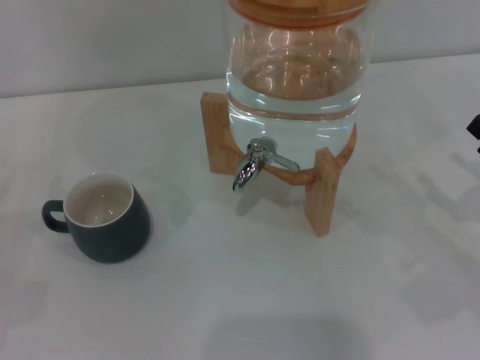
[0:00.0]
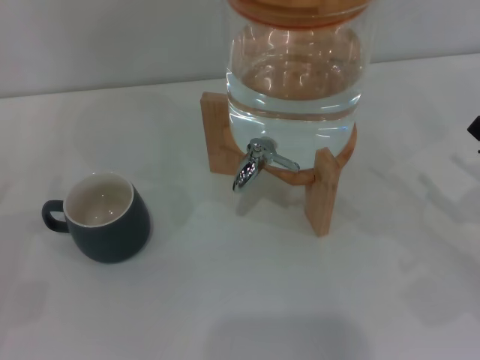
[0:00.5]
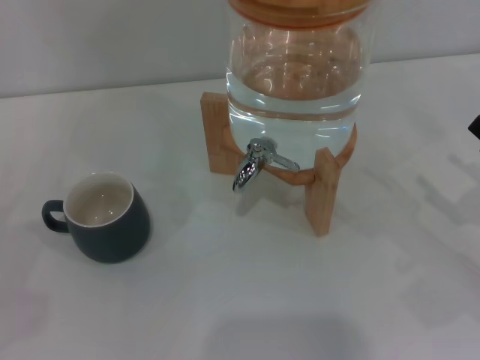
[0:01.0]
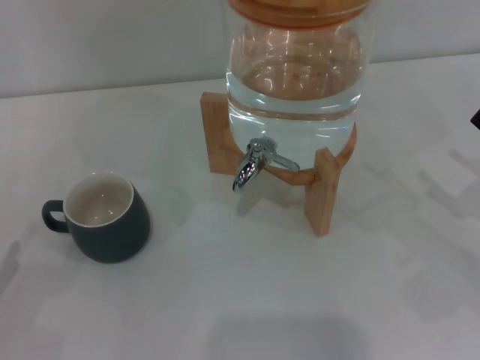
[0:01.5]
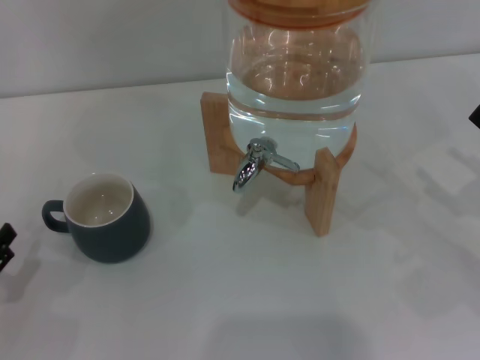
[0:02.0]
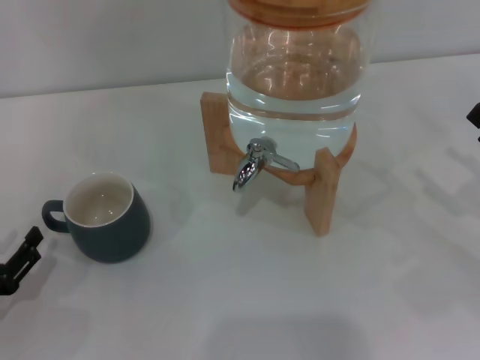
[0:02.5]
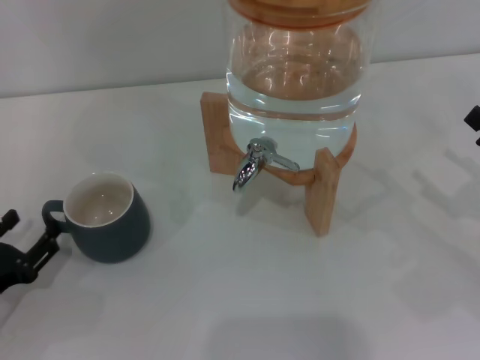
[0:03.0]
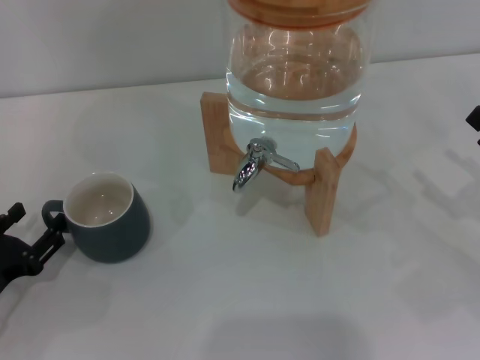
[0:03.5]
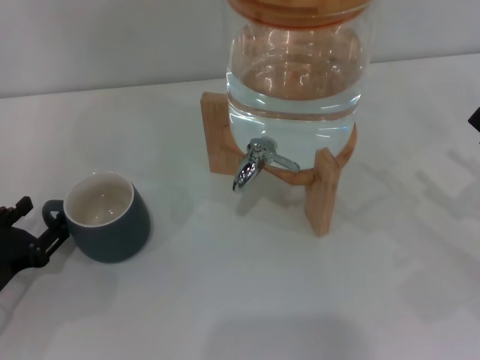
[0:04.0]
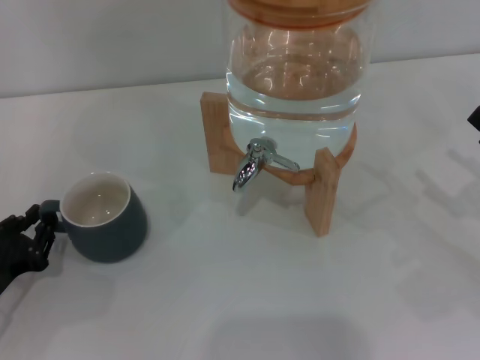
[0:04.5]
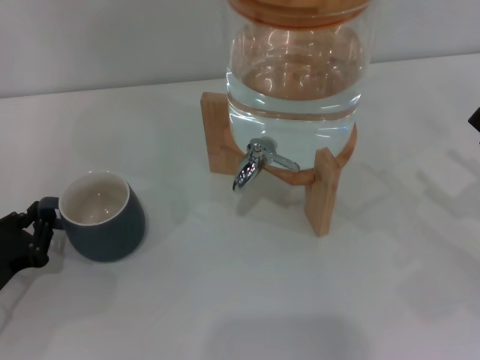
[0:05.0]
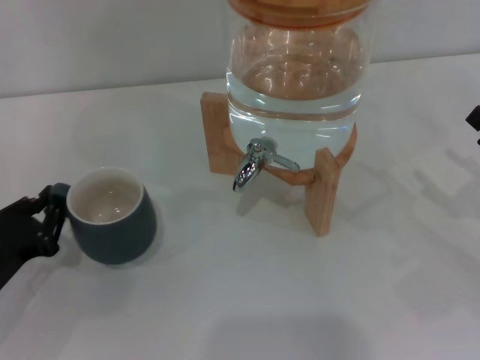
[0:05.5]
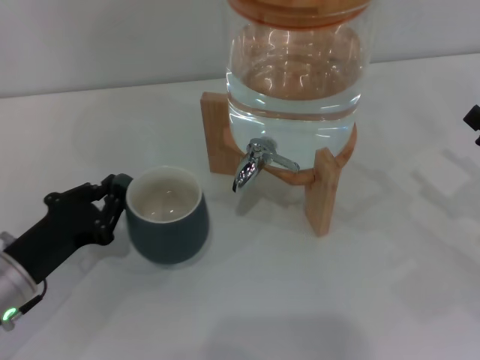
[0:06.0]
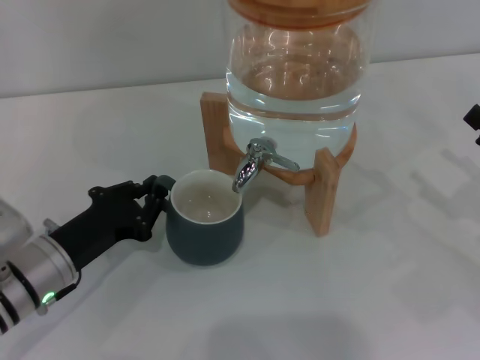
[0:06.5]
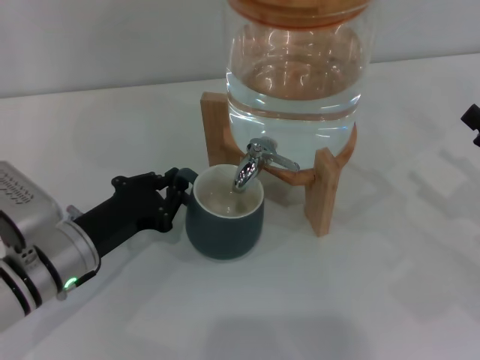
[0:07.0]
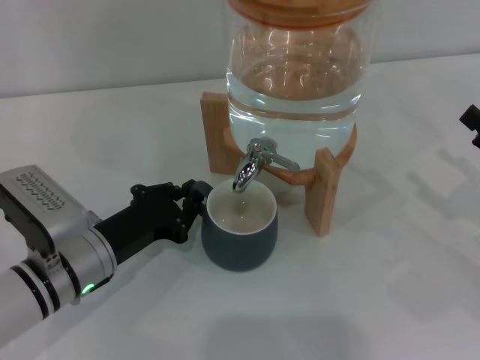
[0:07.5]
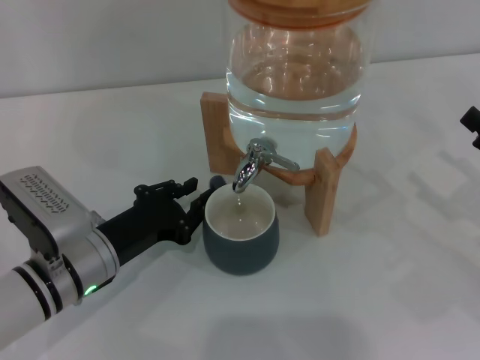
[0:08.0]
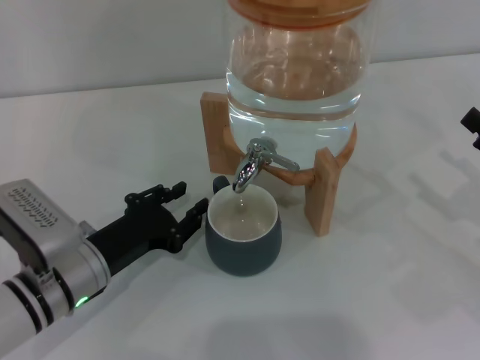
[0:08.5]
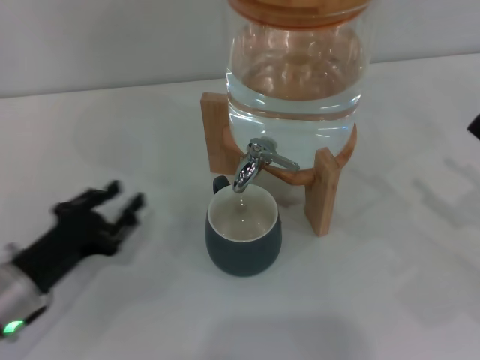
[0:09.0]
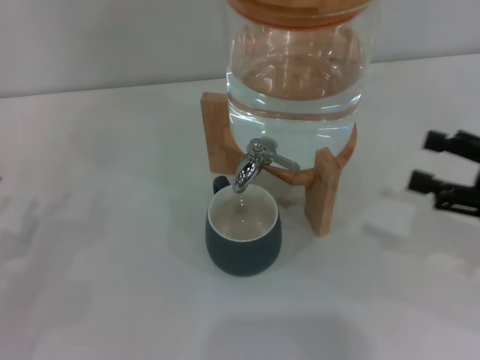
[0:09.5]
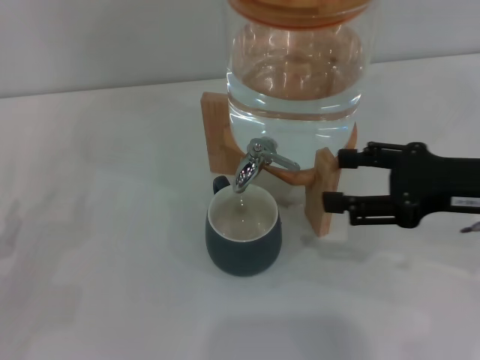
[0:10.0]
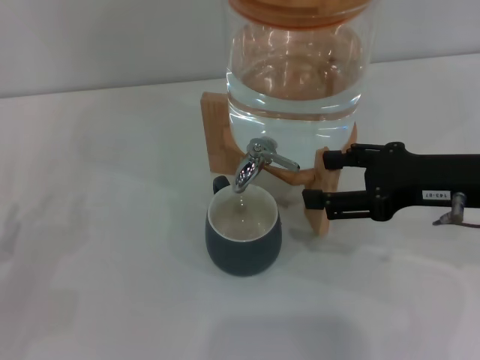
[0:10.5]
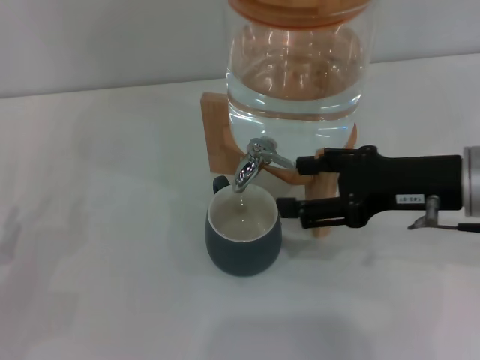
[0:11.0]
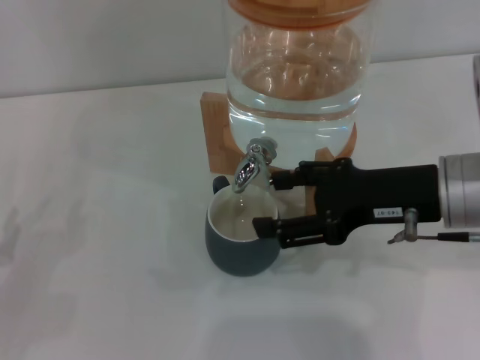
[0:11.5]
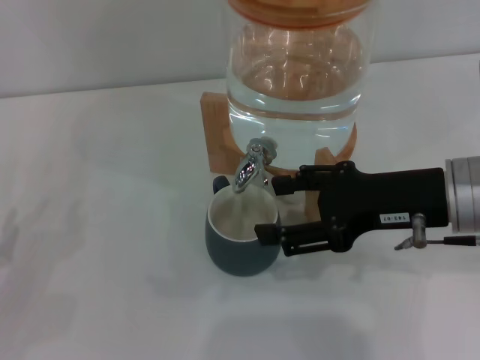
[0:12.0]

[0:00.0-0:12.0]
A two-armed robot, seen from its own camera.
Task of the whole recording: the left gripper pick up the black cup and place it horizontally under the faucet, the right gripper turn on the faucet to fill the cup, and then turn off the faucet.
Step, 0:00.0 to 0:08.5: Move the cup beneath the water dispenser nozzle with the left gripper.
0:00.0 to 0:02.0: The left gripper ends up roughly 5 cm from where it was.
0:02.0 to 0:04.0: The left gripper changes place by approximately 5 cm.
0:04.0 to 0:06.0: The left gripper travels to the right by about 5 cm, and closes up.
0:06.0 to 0:08.0: The left gripper moves to the right, about 10 cm.
0:08.0 to 0:10.0: The left gripper shifts approximately 15 cm to the left, and opens up, while the right gripper shifts about 10 cm upward and to the left.
0:10.0 to 0:12.0: The right gripper moves to the left, some 5 cm.

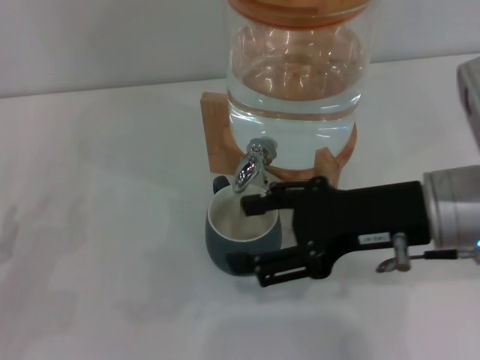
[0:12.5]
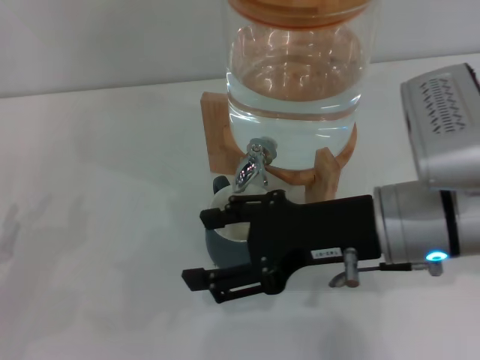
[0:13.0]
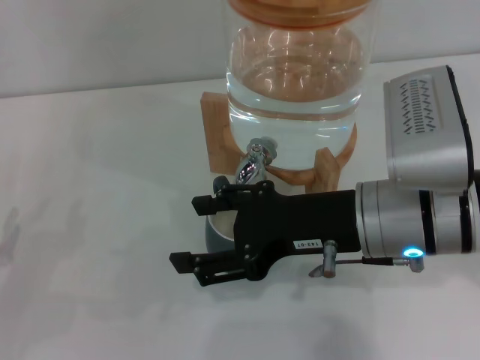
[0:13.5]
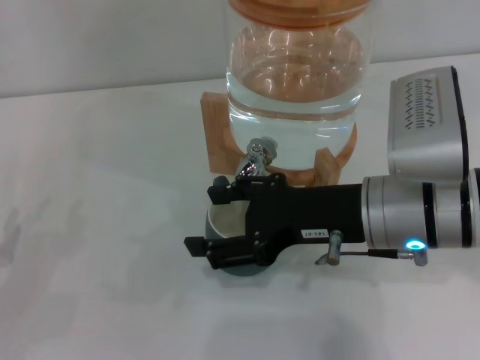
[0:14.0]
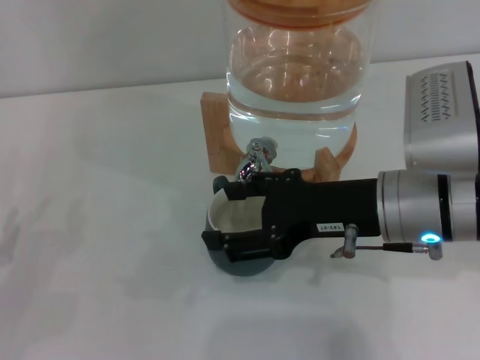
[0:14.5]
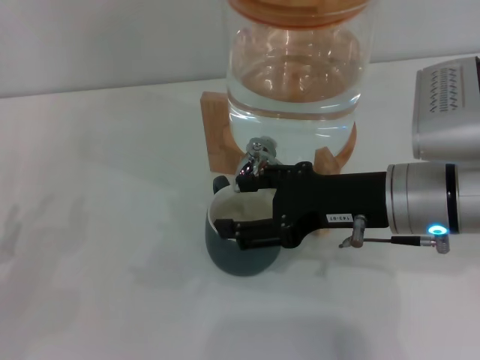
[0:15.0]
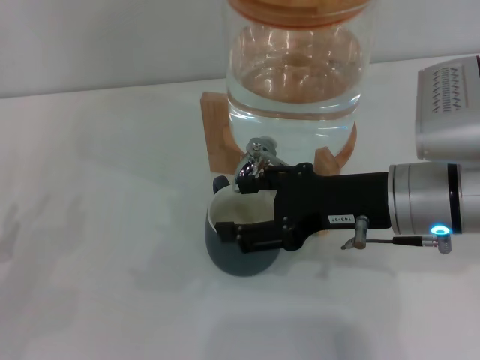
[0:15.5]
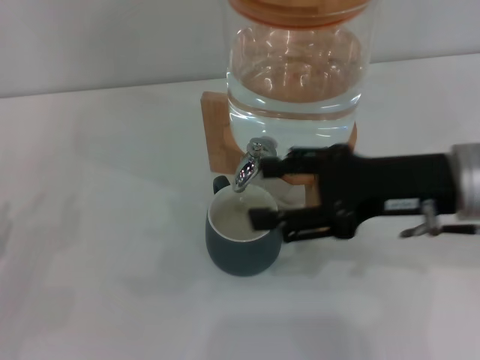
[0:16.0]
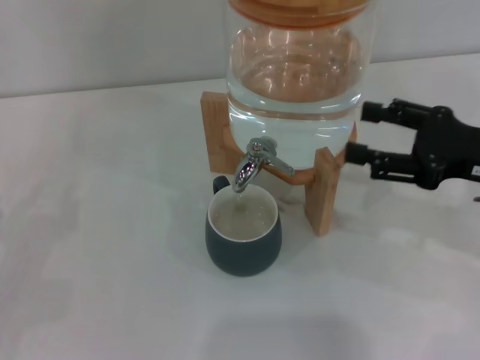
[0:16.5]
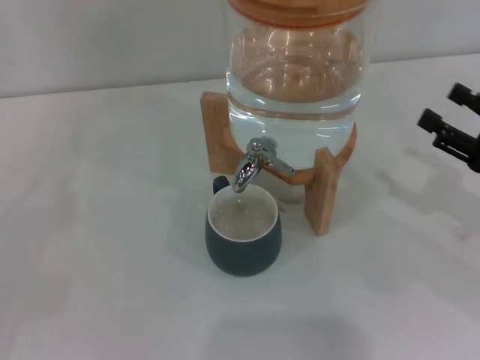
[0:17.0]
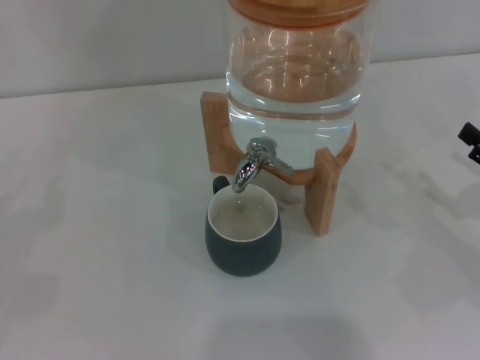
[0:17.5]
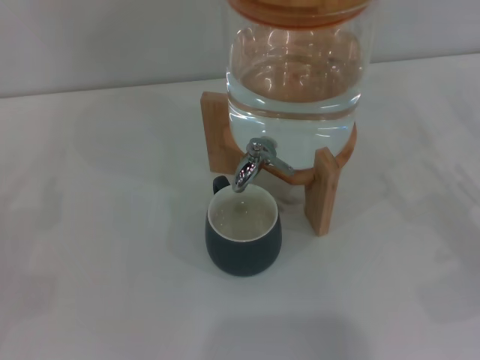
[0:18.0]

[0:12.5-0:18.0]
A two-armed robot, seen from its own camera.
Task of the whole recording: the left gripper pick up the black cup and place it horizontally under the faucet, the right gripper turn on the faucet to fill the cup, and then turn off the faucet.
Step, 0:14.0 to 0:16.0: Close the dispenser valve with the right gripper.
0:12.5 to 0:14.5: The grippers stay close to where they were, moving slightly.
0:14.5 to 0:16.0: The right gripper changes place by about 5 cm.
0:16.0 to 0:18.0: The right gripper moves to the right and downward, some 20 cm.

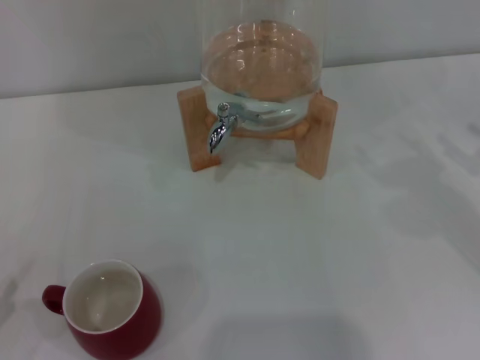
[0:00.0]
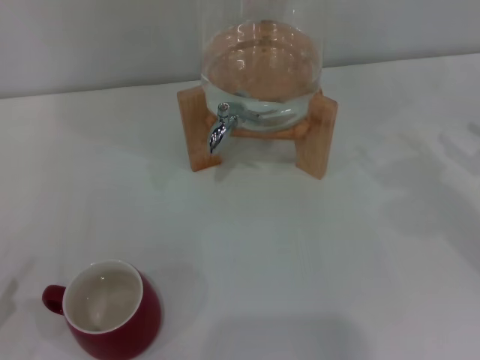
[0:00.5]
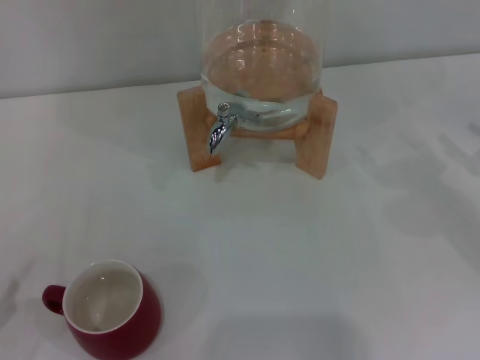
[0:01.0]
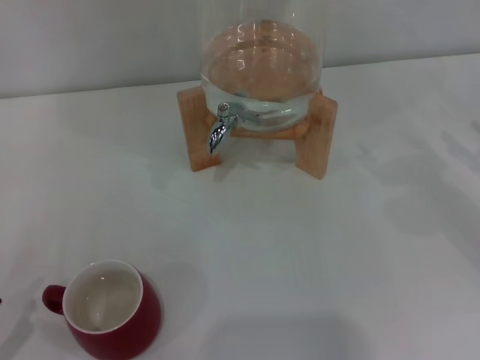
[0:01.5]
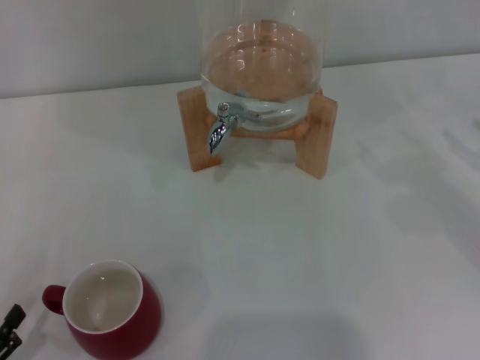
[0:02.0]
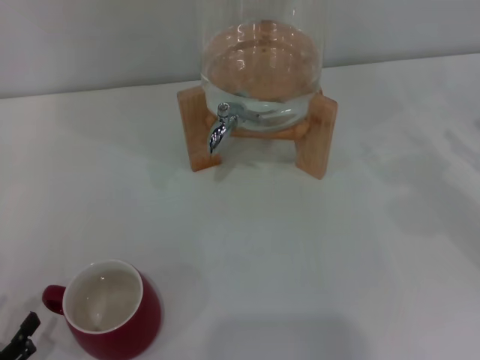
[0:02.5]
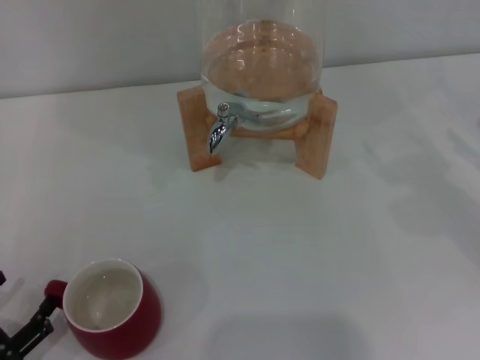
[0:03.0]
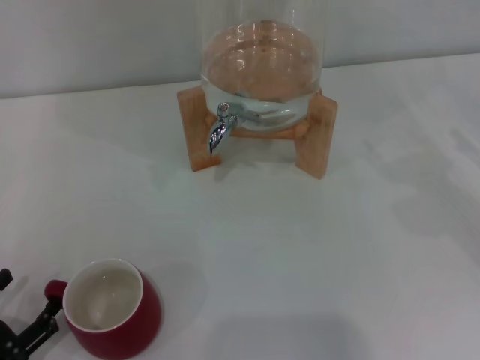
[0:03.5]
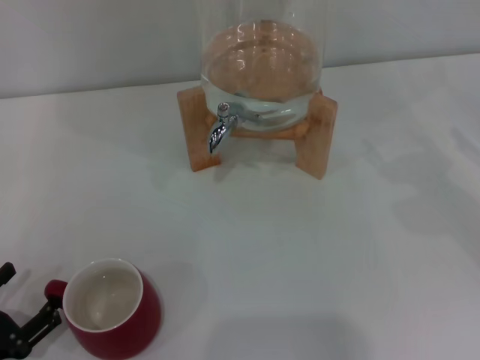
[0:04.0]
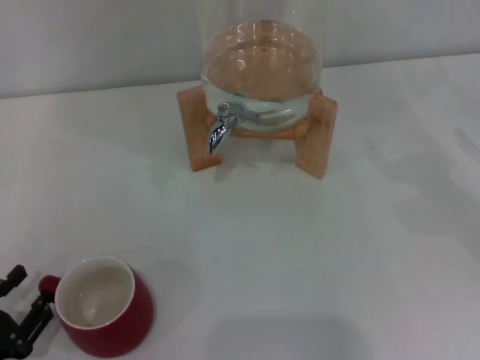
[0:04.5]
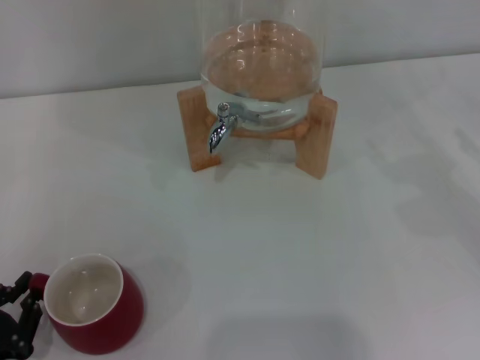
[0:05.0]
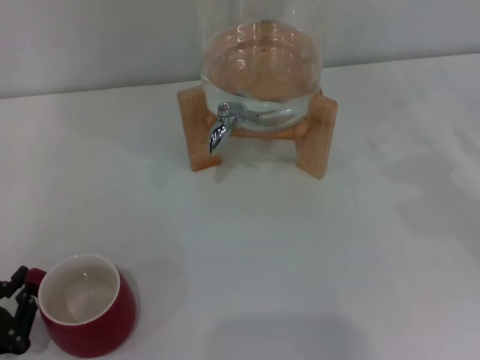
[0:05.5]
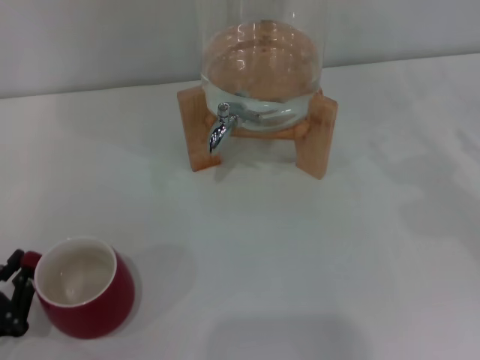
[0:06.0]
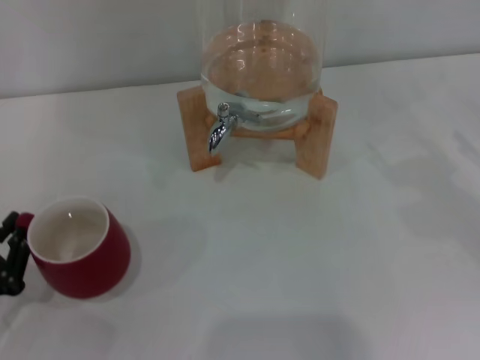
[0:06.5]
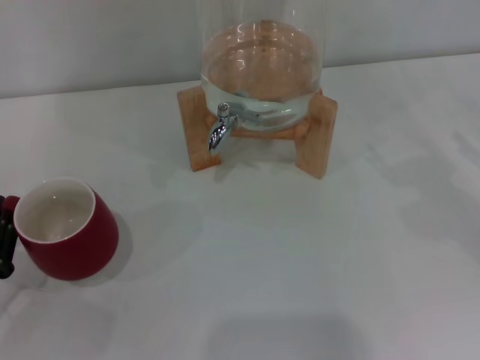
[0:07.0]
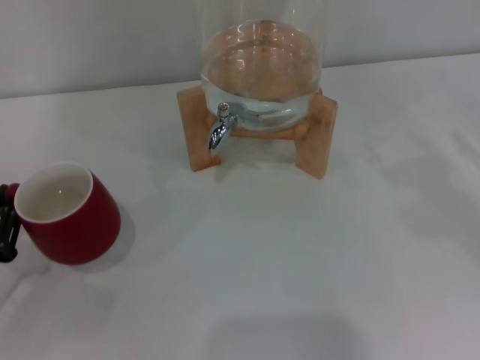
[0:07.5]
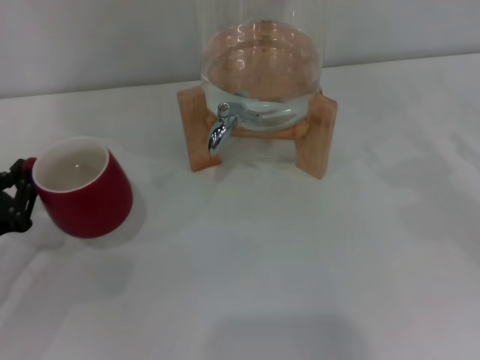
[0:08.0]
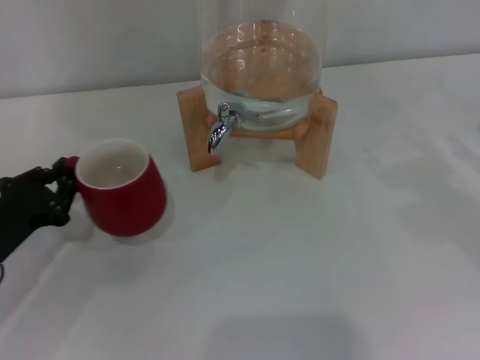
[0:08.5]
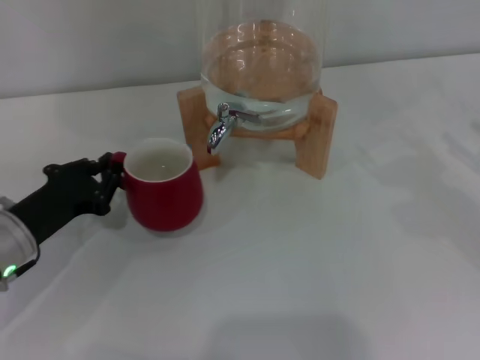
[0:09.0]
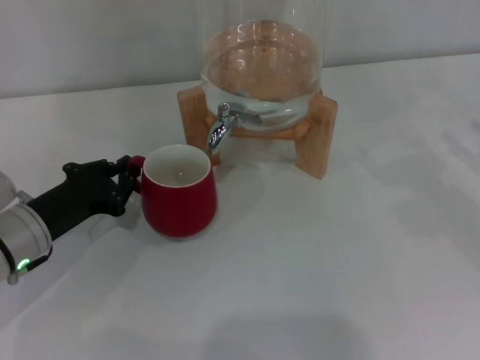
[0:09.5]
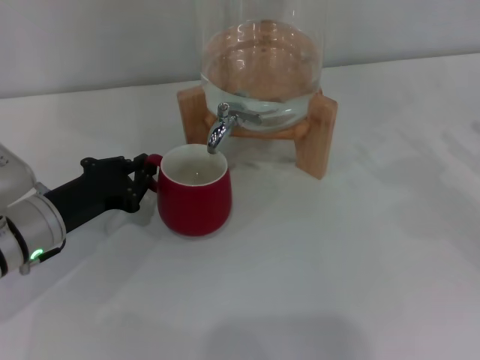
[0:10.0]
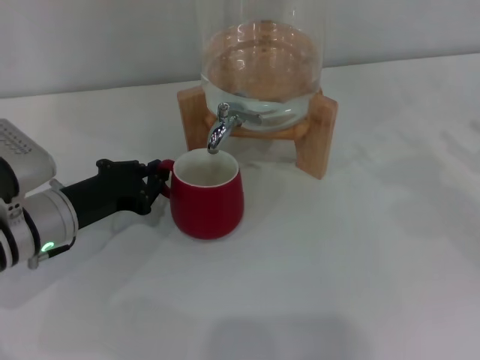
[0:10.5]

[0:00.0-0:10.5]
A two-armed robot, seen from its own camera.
Task of the whole recording: the left gripper pick up the red cup and place it horizontally under the faucet, the right gripper turn on the faucet to fill the cup, and then turn off the faucet.
0:02.0 to 0:04.0: The grippers stay close to where they were, moving slightly.
0:04.0 to 0:06.5: The left gripper changes place by about 5 cm, and closes up.
0:06.5 to 0:08.5: The left gripper travels forward by approximately 10 cm.
0:08.5 to 0:10.5: The left gripper is displaced to the right and forward by about 10 cm.
